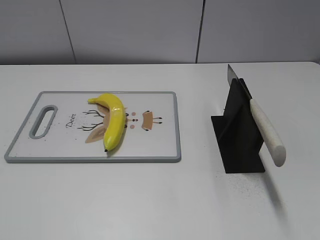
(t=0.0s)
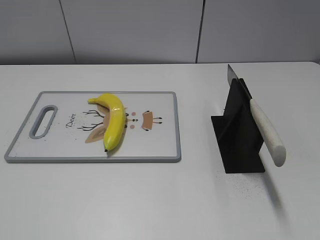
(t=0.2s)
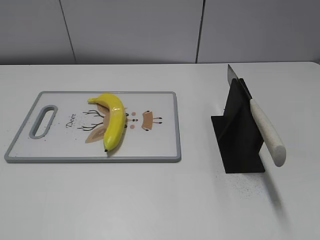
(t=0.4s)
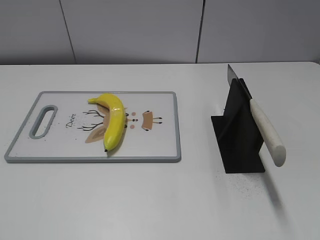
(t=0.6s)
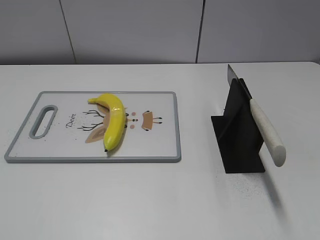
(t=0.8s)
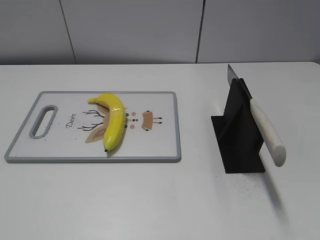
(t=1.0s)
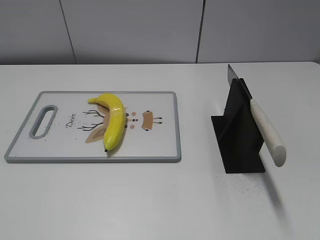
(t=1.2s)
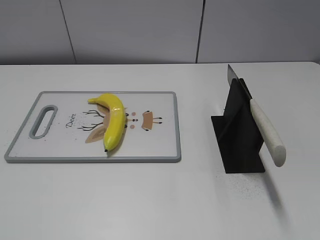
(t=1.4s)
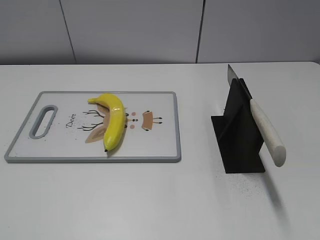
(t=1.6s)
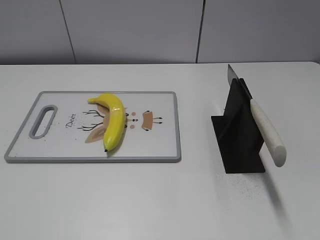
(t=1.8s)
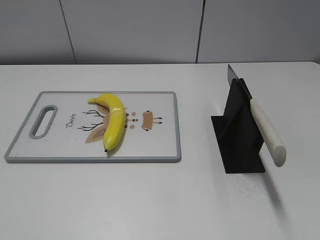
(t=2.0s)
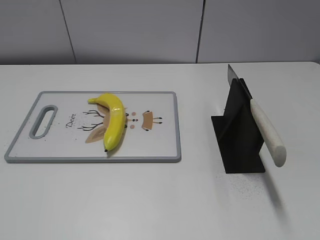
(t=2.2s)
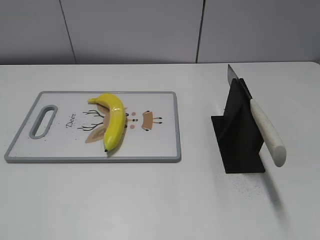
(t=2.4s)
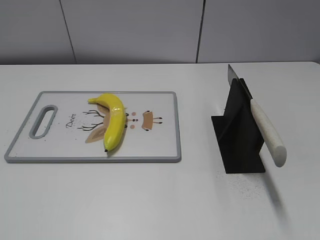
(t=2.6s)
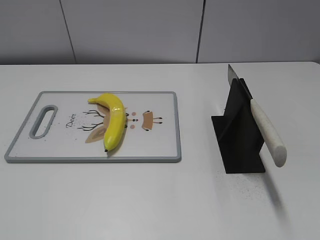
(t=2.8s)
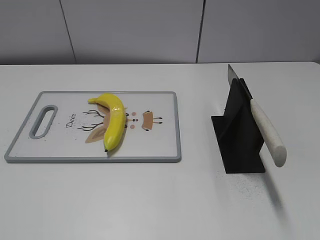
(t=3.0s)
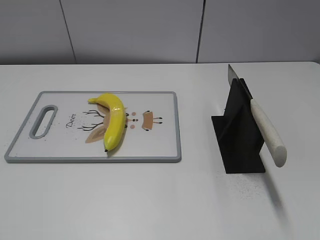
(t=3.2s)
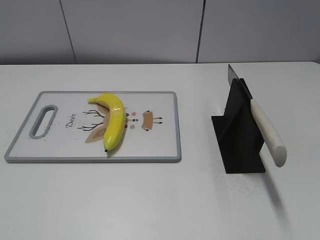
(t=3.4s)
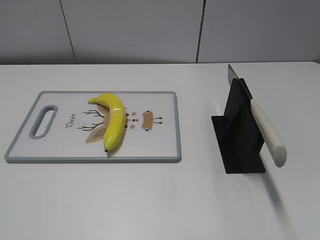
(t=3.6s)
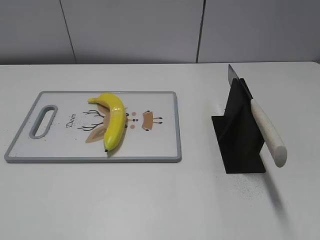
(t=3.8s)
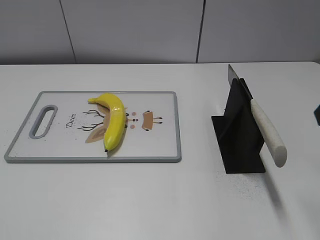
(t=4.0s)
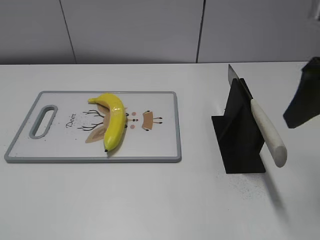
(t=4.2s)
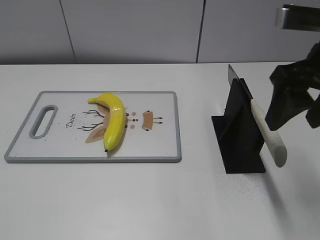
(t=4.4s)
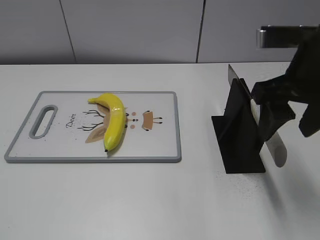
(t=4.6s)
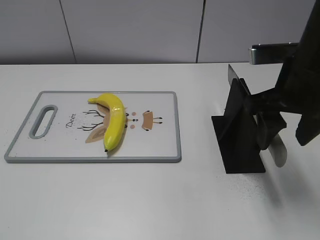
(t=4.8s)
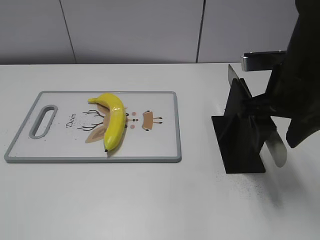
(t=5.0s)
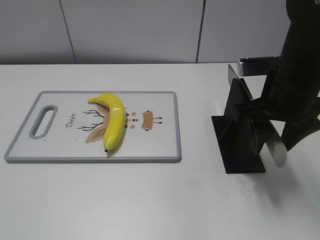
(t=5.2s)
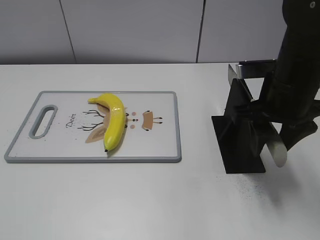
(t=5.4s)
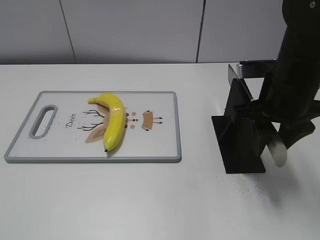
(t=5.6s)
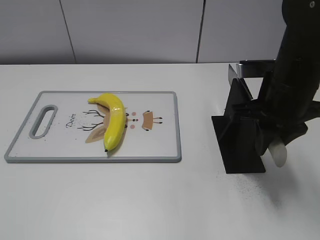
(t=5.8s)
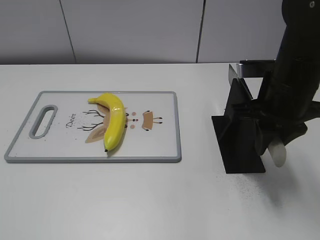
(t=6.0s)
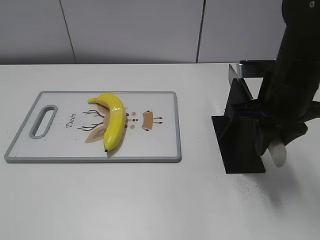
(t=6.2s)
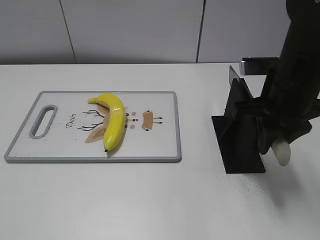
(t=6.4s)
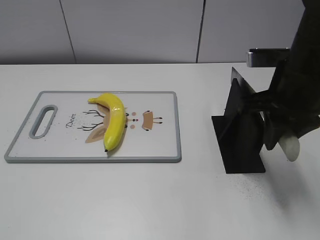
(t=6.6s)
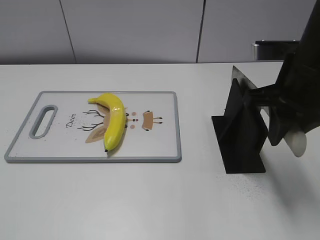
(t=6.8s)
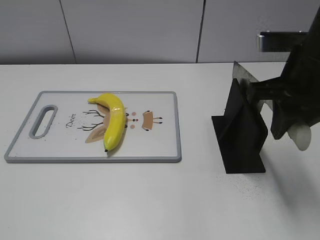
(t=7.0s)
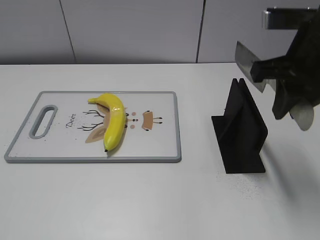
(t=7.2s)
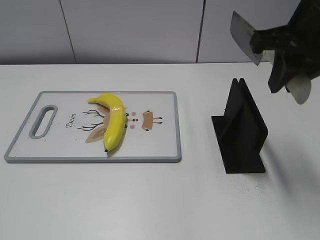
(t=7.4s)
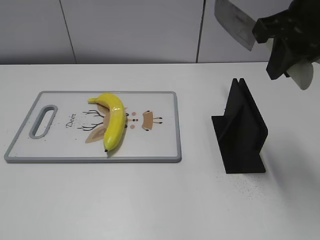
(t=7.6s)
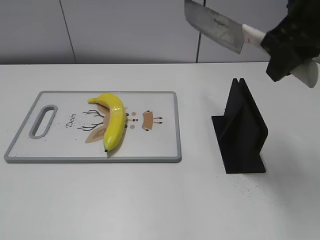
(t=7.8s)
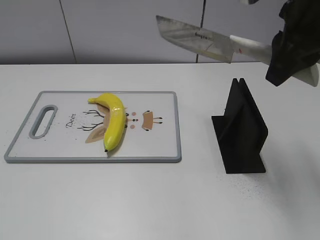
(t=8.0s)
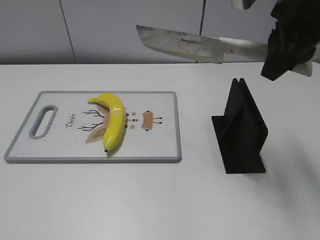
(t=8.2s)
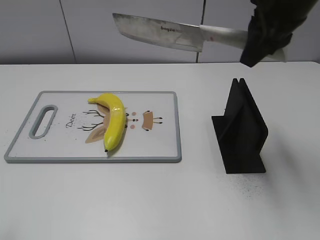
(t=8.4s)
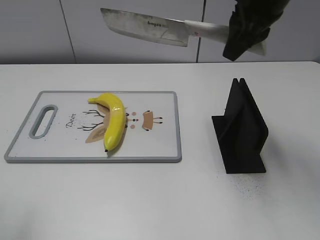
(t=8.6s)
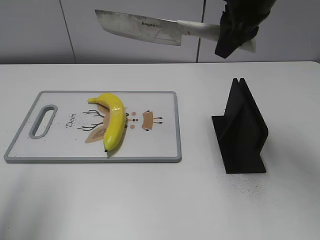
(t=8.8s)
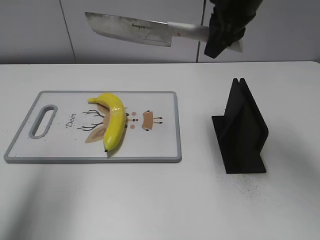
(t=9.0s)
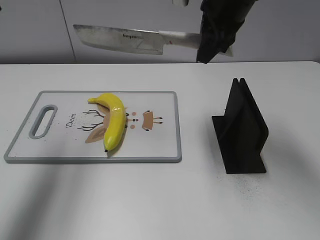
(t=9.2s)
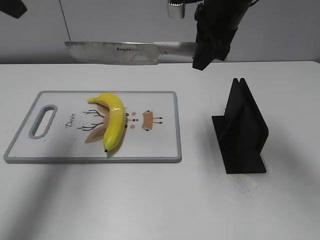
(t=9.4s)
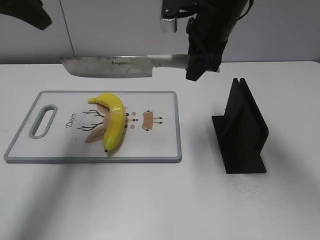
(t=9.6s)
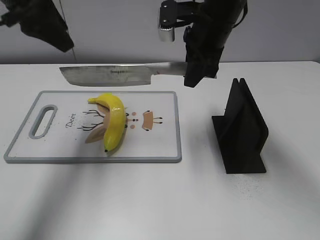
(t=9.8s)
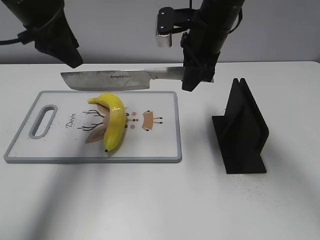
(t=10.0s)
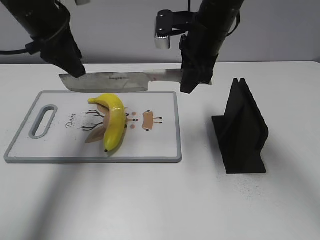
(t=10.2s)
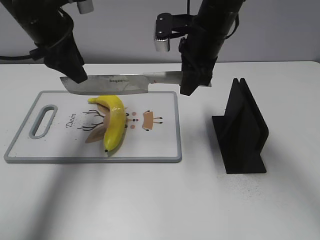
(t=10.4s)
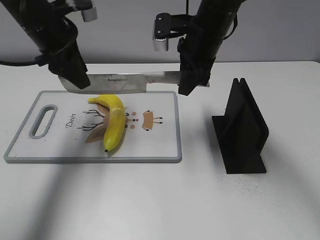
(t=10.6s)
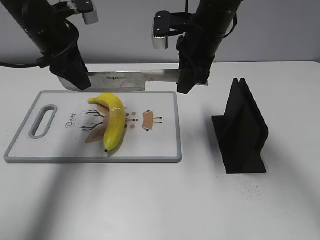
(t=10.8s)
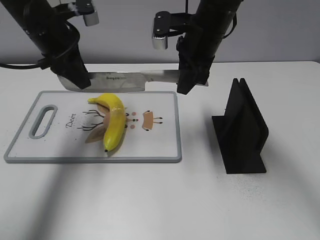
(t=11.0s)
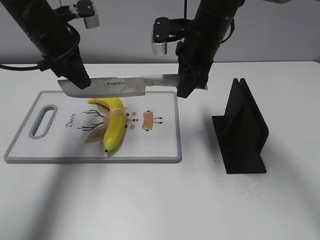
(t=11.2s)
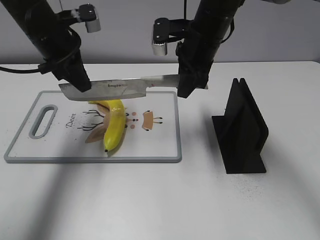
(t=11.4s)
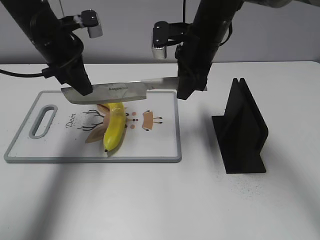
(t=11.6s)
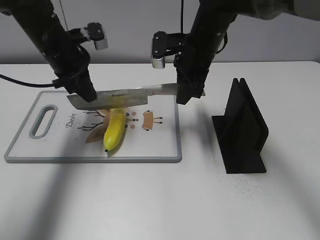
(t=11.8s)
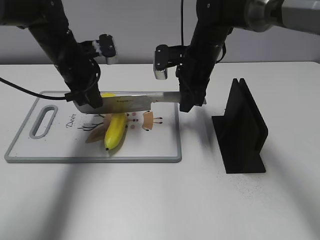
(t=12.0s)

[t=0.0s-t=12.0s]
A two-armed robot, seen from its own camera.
Task of the whole recording: cut plastic banana.
Step, t=0.0s to t=7.6s: Grab the knife handle with your right hand.
t=3.0s to t=4.4s: The right gripper shifts approximately 25 cm forward and to the left.
t=4.4s to t=6.0s: The right gripper shifts about 10 cm downward, and closes its fingers.
t=6.0s to t=7.6s: The right gripper goes approximately 10 cm upward.
t=7.6s to t=9.0s: The left gripper heads forward and upward, covering roughly 30 cm; the right gripper heads forward and to the left, covering some 10 cm.
t=9.0s to t=10.4s: The right gripper shifts about 10 cm downward. Meanwhile the left gripper moves forward, downward and to the right, roughly 20 cm.
t=10.4s to t=12.0s: The two grippers go approximately 10 cm downward. The left gripper closes its fingers.

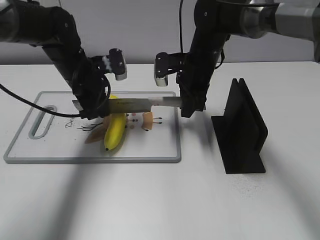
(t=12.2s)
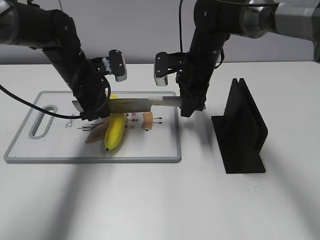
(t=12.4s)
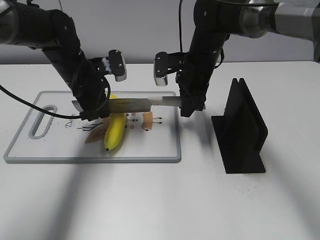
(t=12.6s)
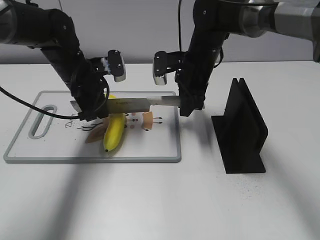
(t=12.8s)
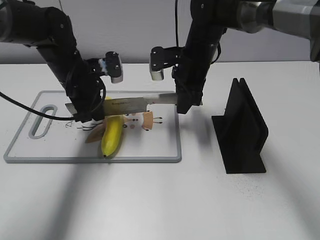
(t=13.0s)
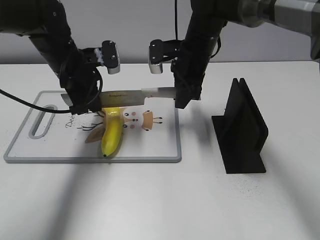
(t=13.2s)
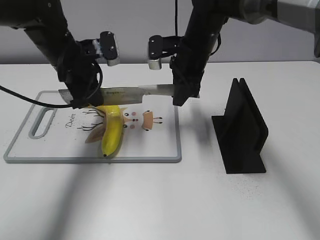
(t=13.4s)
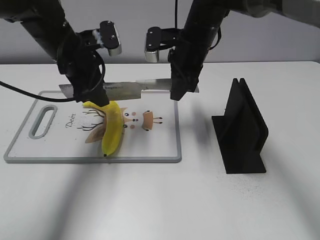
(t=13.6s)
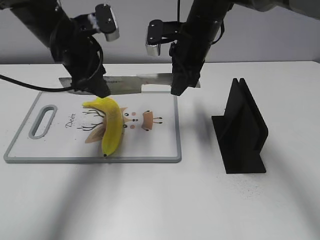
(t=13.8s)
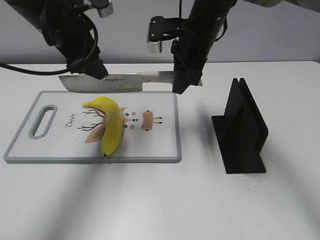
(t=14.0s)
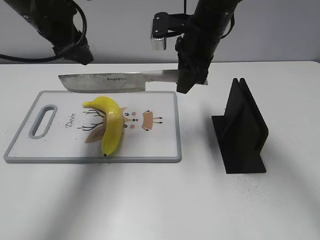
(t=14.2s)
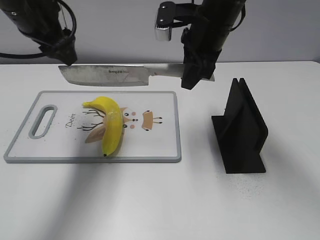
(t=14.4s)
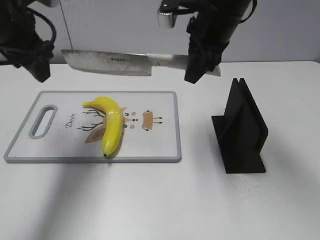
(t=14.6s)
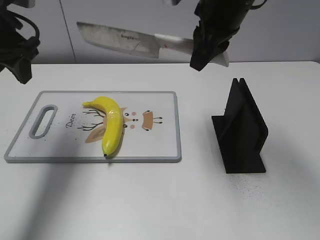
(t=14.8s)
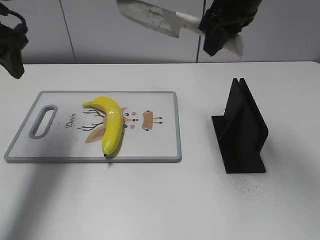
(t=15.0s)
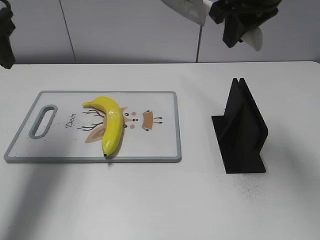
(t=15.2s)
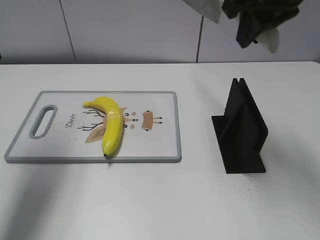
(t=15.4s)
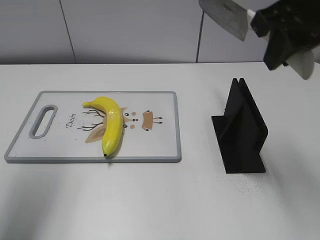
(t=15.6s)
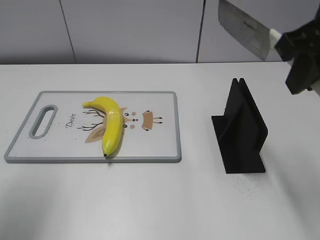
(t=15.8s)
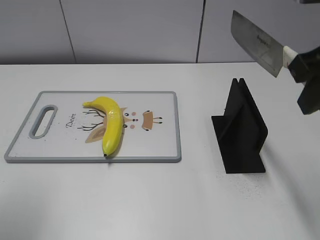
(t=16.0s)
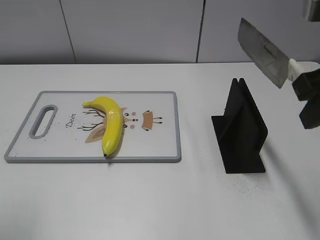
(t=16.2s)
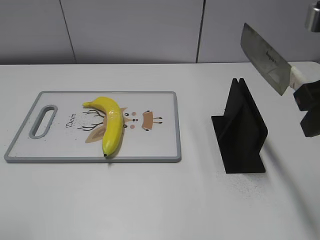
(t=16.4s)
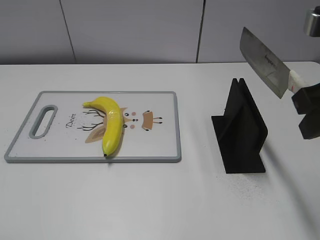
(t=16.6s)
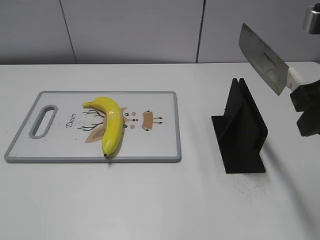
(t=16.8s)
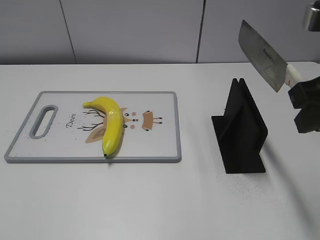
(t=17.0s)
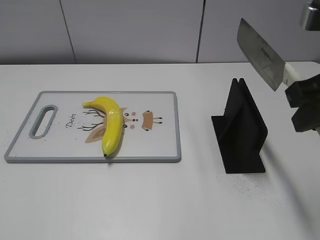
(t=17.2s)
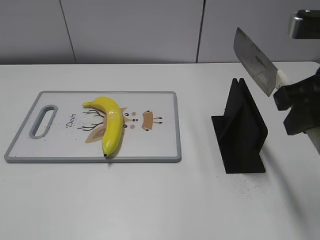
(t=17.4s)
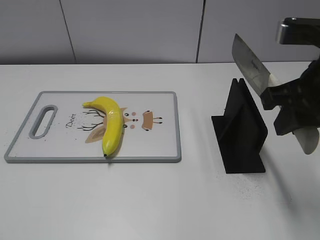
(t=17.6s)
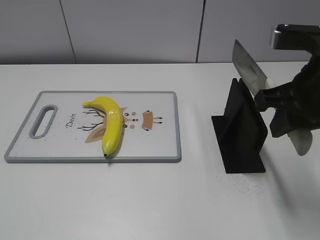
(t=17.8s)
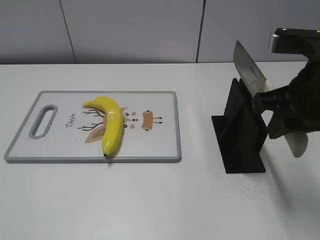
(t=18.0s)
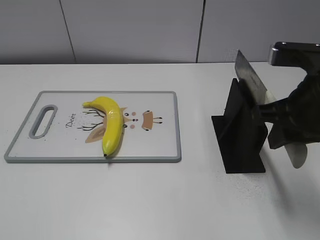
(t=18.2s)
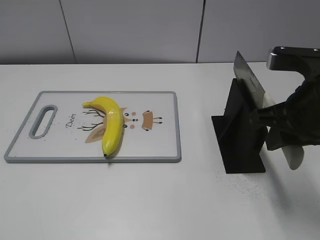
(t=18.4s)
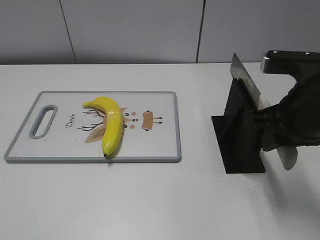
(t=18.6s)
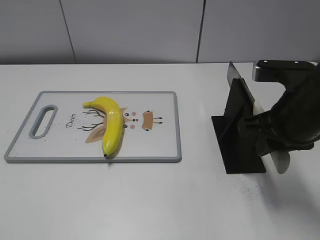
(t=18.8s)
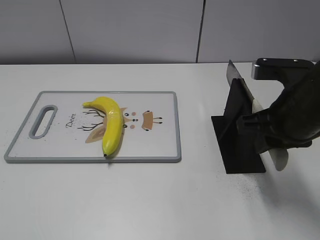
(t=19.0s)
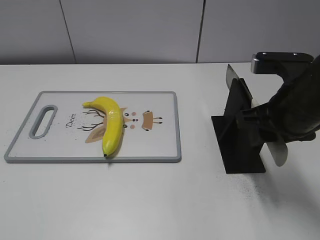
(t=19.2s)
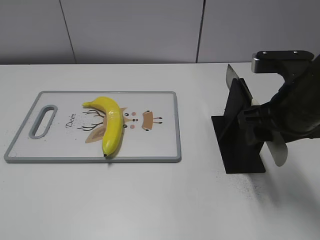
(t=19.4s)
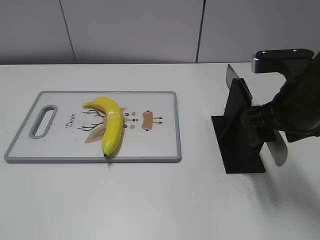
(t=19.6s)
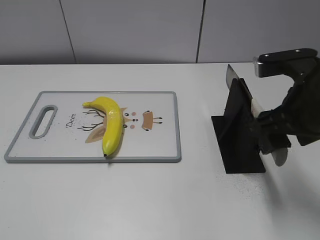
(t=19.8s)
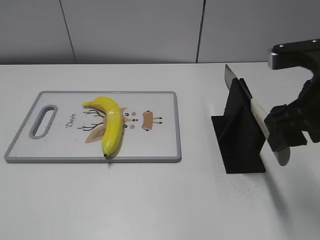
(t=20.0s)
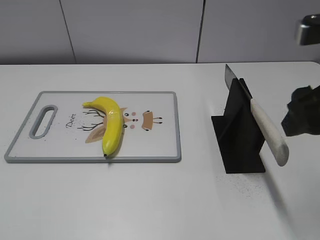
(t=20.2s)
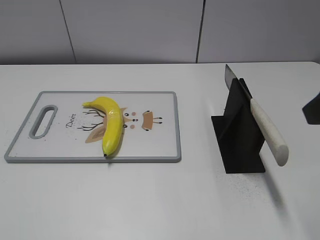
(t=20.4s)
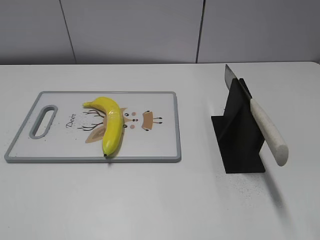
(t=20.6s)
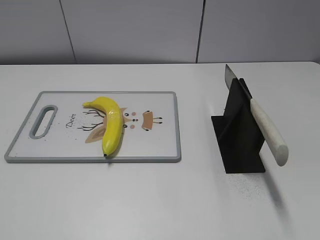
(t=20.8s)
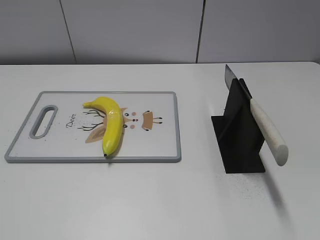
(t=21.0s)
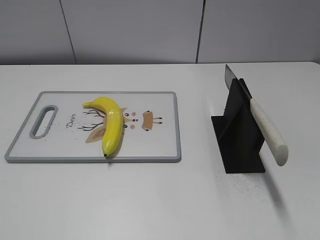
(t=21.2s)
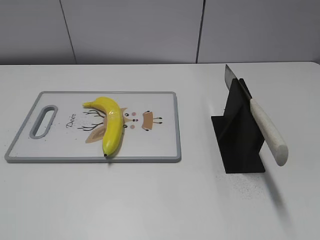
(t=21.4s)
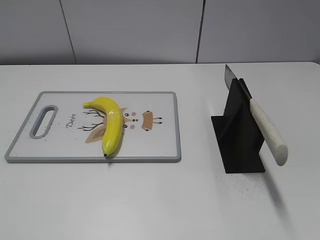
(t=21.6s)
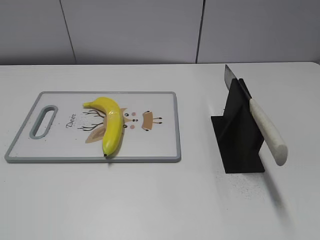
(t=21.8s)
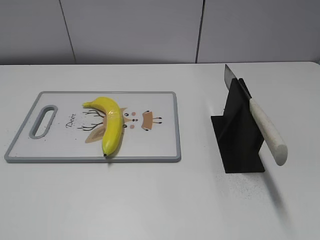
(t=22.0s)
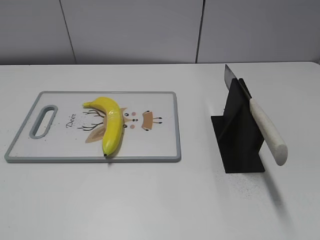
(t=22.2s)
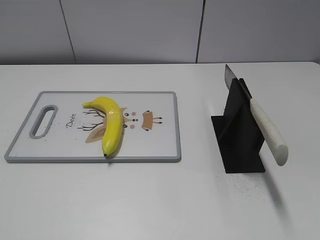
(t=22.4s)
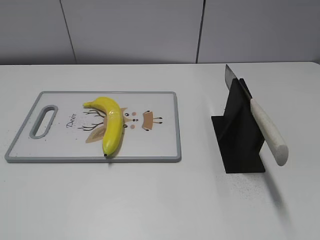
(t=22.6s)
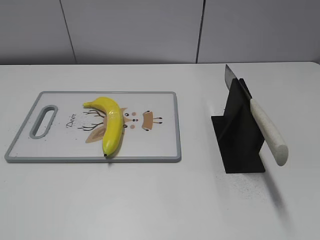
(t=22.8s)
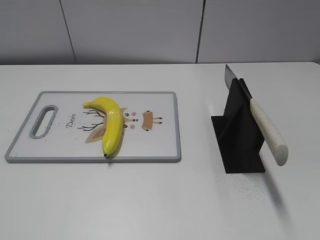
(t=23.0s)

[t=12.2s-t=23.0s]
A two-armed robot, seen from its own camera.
Task of the whole recording: cut plastic banana.
Step, t=14.2s to t=16.0s: Cut the banana with your right hand.
Step, t=17.2s to t=23.0s: Place the knife on the storage rack with your right hand.
t=12.2s to t=13.8s: The two grippers go approximately 10 cm upward. The left gripper opens up.
t=13.8s to t=15.2s: The left gripper goes approximately 15 cm to the left and upward, while the right gripper is displaced upward, backward and to the right by some 15 cm.
t=15.2s to t=16.8s: The left gripper shifts about 30 cm backward. Meanwhile the right gripper shifts some 15 cm backward and to the right.
t=16.8s to t=18.4s: The right gripper travels downward by roughly 5 cm.
t=18.4s to t=20.0s: The right gripper opens up.
t=20.0s to t=21.4s: The right gripper goes approximately 25 cm backward and to the right.
